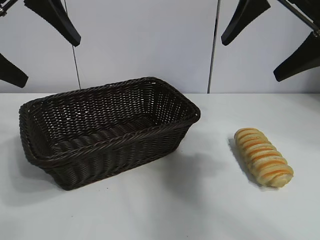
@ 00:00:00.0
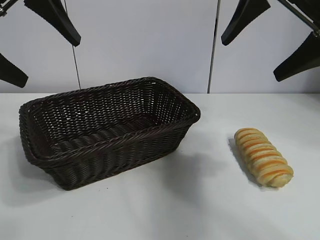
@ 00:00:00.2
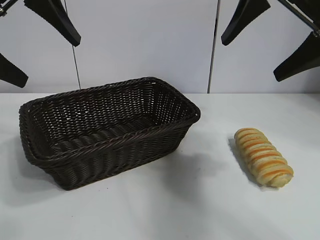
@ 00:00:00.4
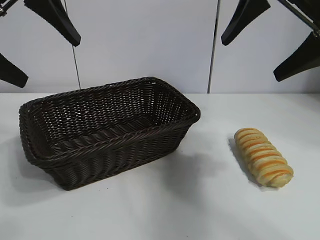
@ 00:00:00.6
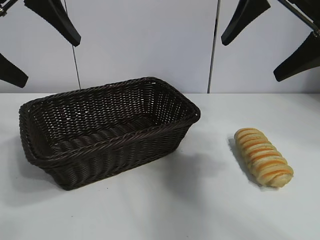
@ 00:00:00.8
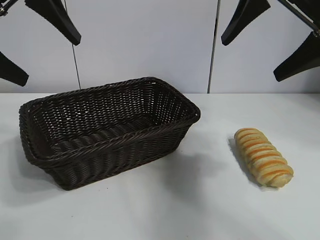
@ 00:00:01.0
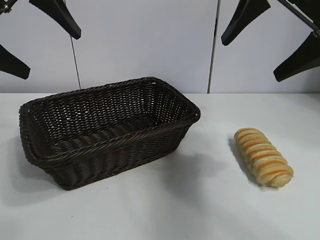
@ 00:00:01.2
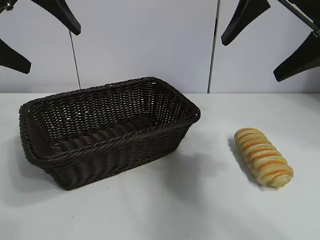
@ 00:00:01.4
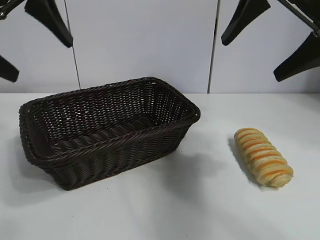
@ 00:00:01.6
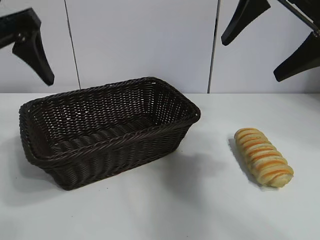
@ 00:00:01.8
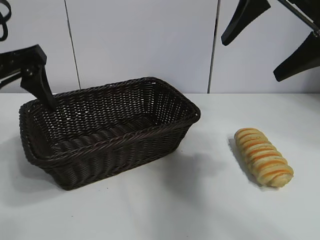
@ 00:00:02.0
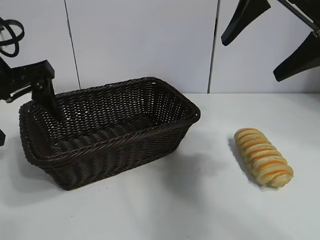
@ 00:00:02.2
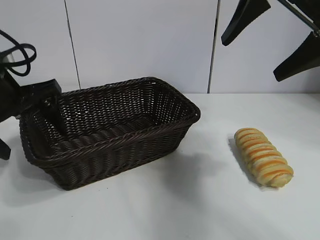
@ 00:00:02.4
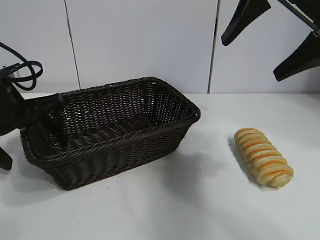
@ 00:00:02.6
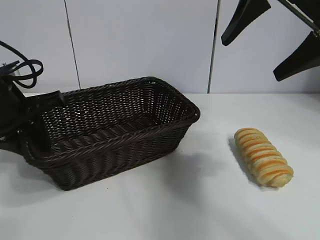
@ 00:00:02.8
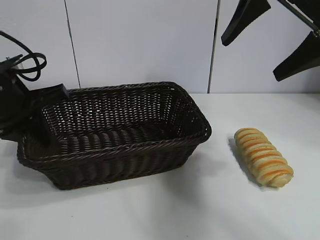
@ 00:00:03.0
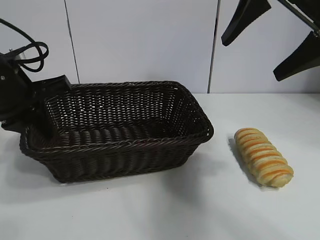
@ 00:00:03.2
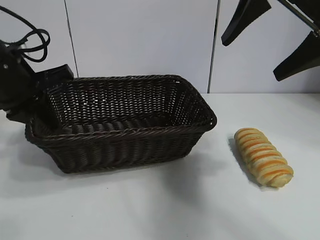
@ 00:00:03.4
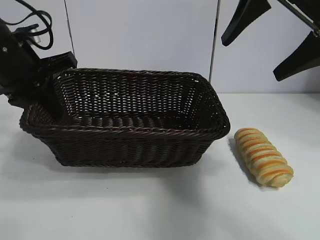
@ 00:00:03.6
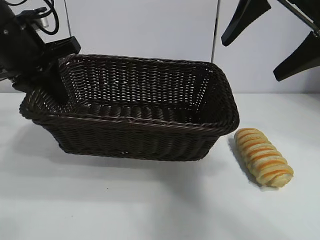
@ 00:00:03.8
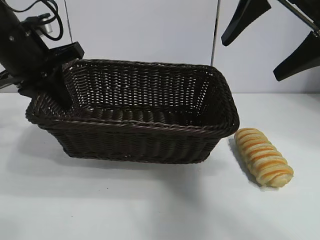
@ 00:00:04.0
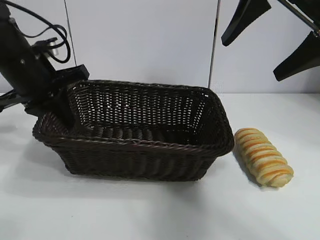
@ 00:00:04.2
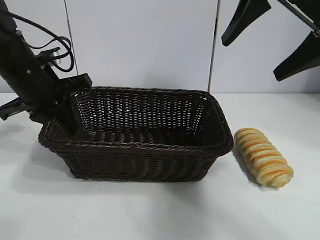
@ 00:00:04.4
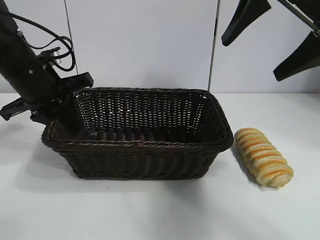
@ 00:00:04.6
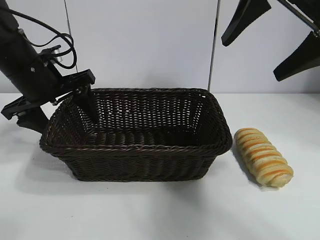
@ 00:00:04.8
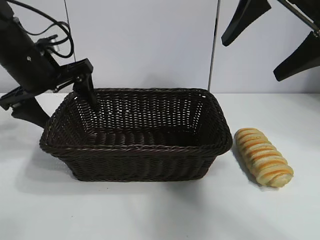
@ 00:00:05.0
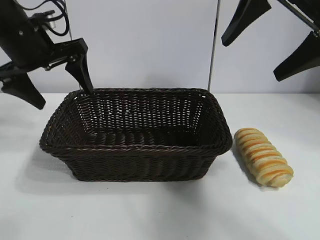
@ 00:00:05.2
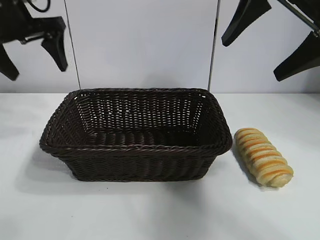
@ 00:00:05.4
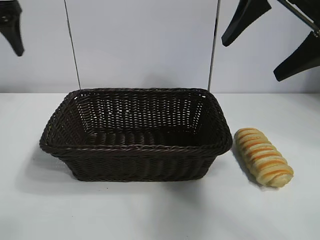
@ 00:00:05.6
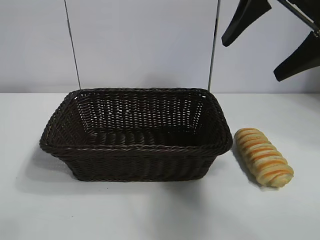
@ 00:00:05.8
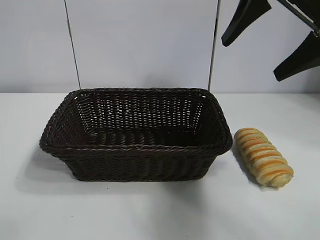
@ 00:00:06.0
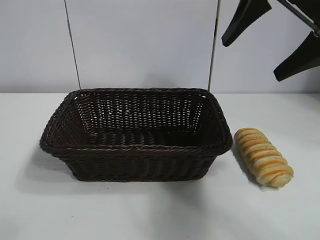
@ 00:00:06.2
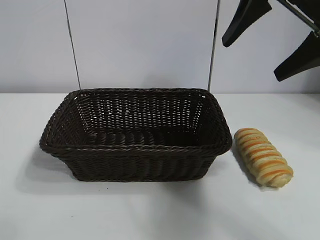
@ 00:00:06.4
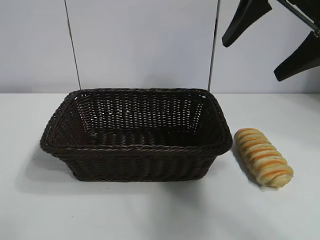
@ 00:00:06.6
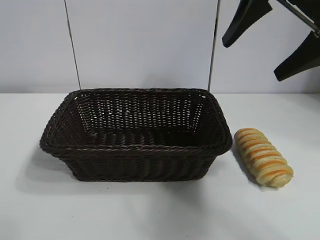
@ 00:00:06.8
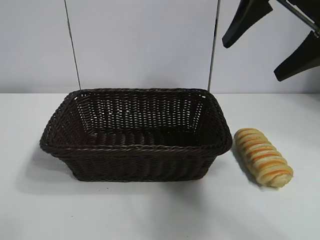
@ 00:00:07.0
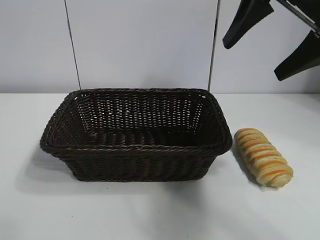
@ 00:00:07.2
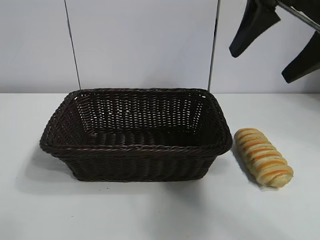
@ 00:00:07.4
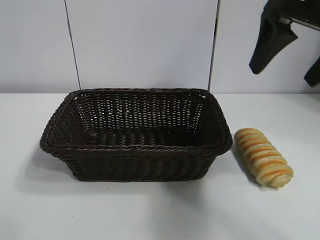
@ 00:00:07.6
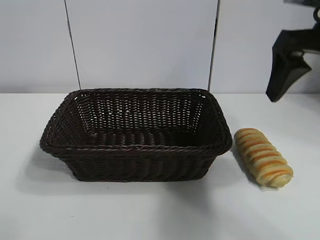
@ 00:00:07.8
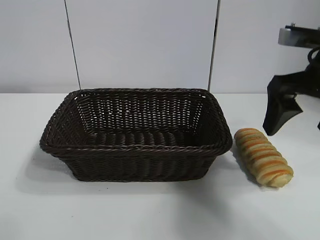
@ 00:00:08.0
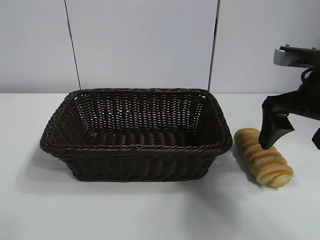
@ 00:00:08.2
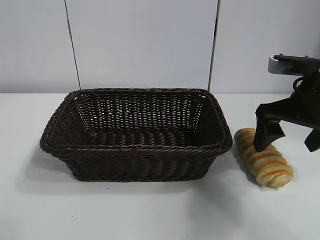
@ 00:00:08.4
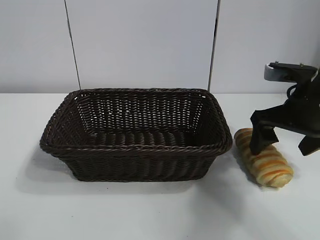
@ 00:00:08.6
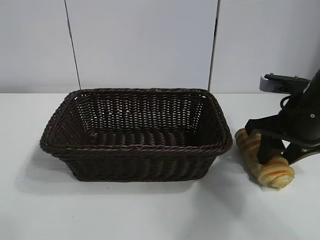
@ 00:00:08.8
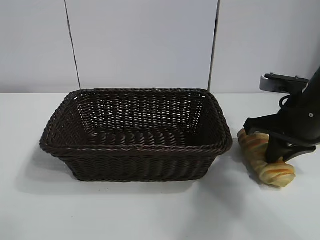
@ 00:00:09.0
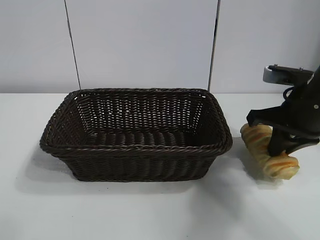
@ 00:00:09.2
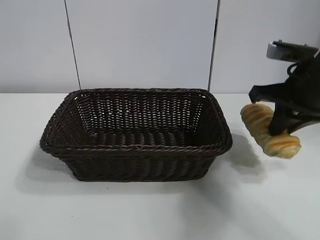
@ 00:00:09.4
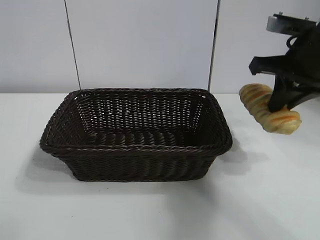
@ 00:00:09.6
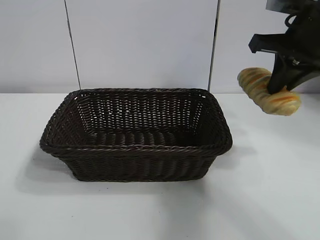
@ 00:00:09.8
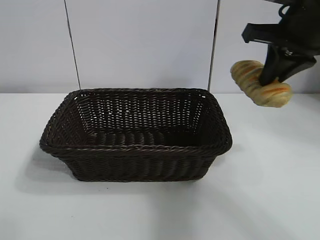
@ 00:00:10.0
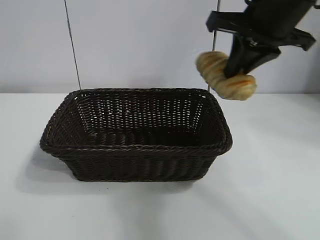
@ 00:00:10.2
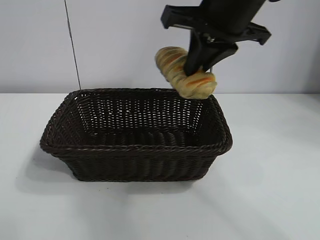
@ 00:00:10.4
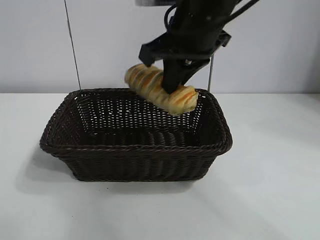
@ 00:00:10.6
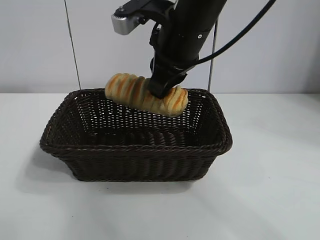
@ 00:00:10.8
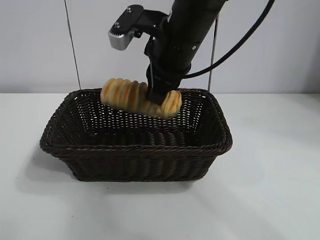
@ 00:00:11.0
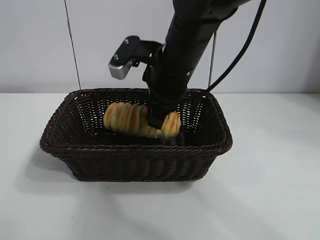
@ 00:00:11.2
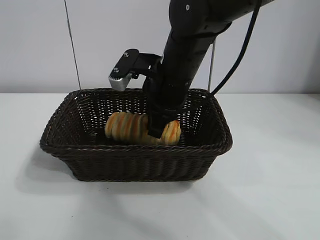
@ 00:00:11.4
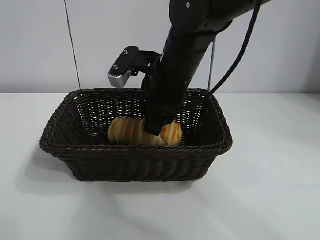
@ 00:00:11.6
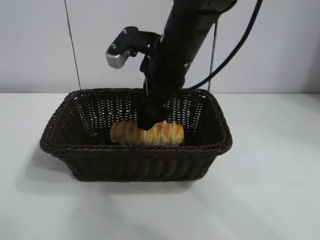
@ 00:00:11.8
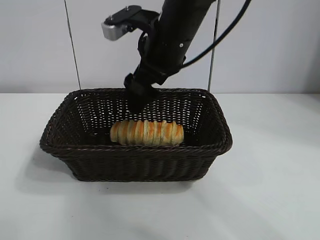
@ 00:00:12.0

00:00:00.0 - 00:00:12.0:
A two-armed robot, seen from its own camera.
Task of the whole recording: pick up the long bread and put it into the basket.
Step, 00:00:01.0 - 00:00:03.0: Grasp the basket with the left gripper.
Step, 00:00:03.2 - 00:00:04.8: Place the basket in the center of the table with the left gripper.
Step, 00:00:05.0 - 00:00:08.8: Grasp the long bread with right gripper.
Step, 00:00:09.0 - 00:00:11.4: Place the long bread in the basket with right gripper.

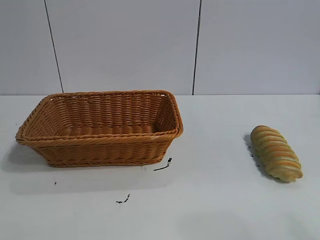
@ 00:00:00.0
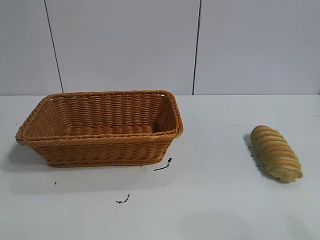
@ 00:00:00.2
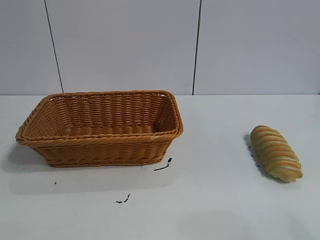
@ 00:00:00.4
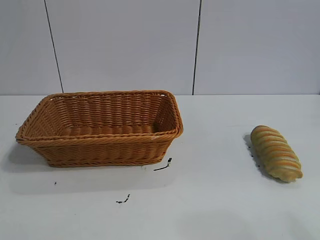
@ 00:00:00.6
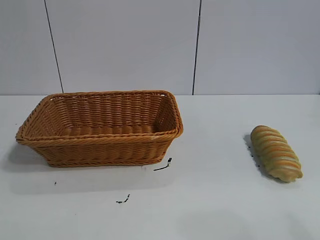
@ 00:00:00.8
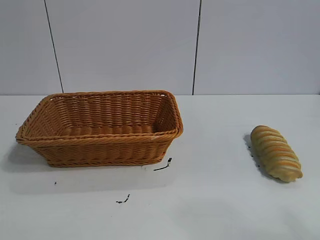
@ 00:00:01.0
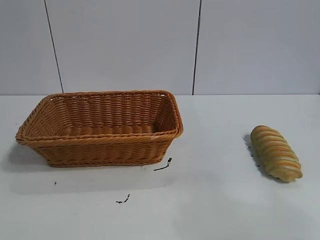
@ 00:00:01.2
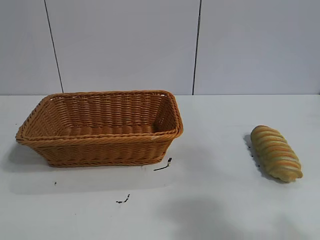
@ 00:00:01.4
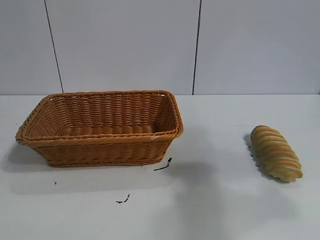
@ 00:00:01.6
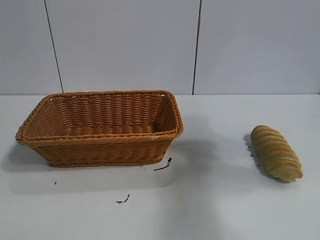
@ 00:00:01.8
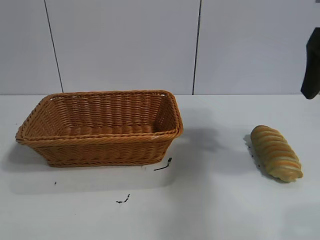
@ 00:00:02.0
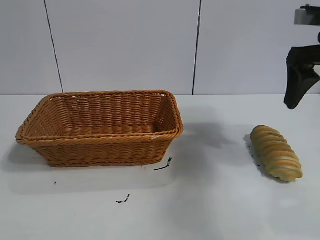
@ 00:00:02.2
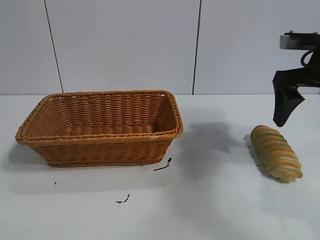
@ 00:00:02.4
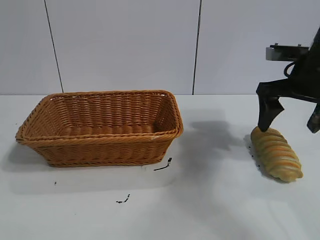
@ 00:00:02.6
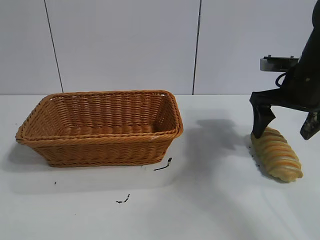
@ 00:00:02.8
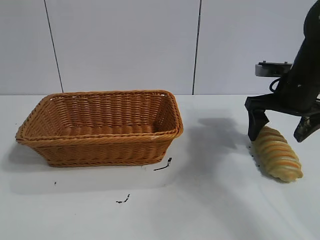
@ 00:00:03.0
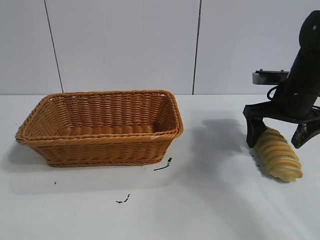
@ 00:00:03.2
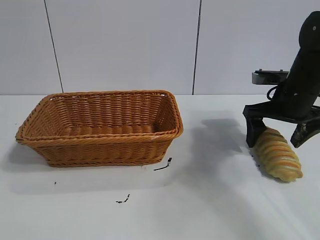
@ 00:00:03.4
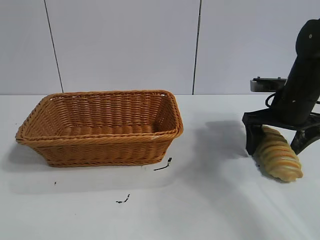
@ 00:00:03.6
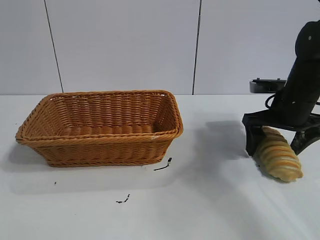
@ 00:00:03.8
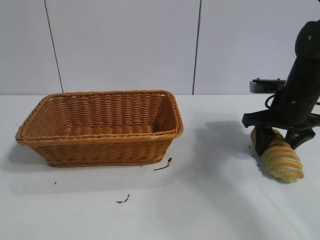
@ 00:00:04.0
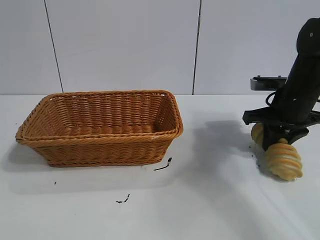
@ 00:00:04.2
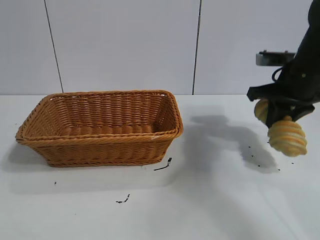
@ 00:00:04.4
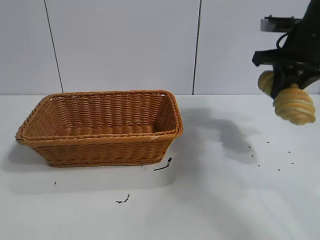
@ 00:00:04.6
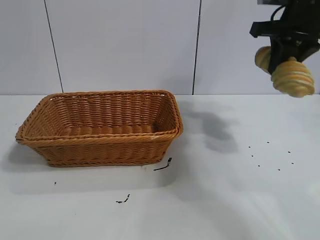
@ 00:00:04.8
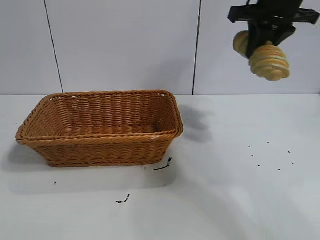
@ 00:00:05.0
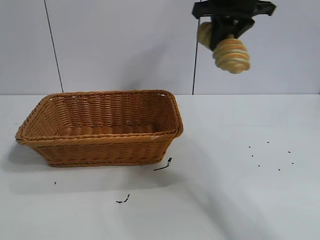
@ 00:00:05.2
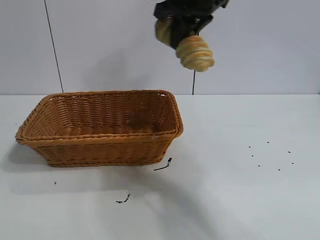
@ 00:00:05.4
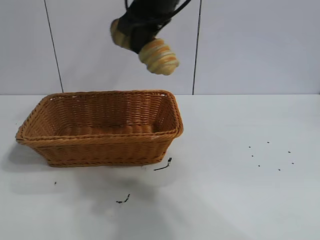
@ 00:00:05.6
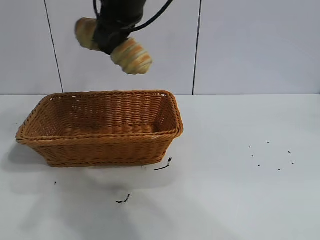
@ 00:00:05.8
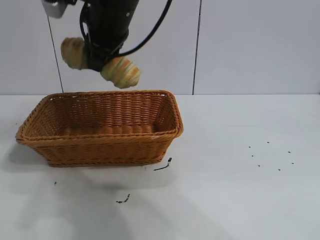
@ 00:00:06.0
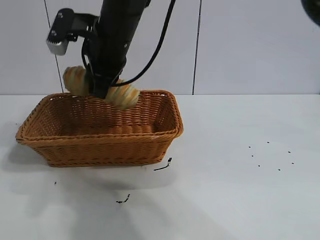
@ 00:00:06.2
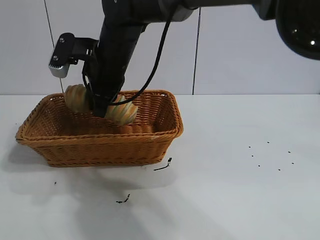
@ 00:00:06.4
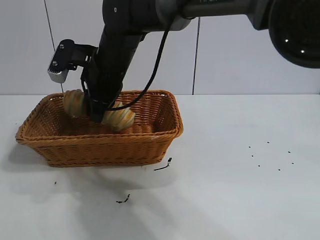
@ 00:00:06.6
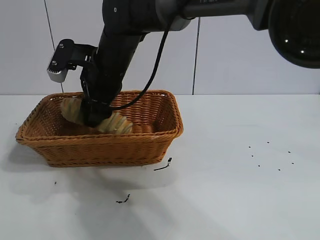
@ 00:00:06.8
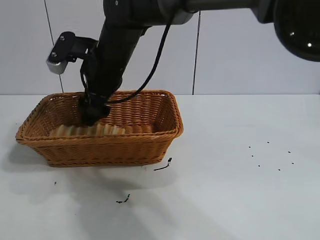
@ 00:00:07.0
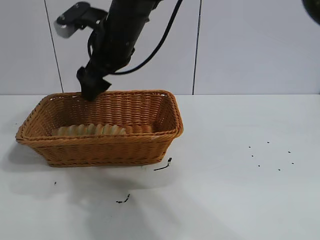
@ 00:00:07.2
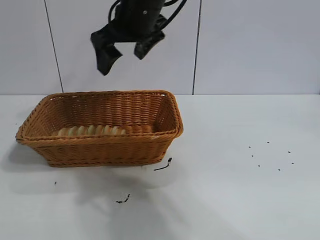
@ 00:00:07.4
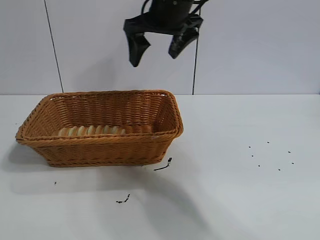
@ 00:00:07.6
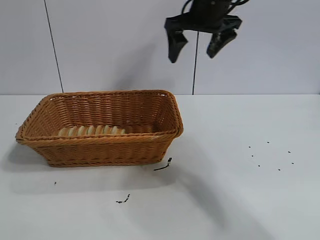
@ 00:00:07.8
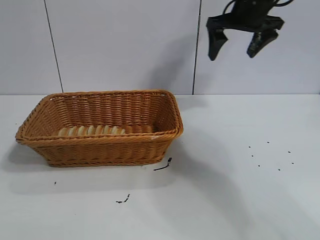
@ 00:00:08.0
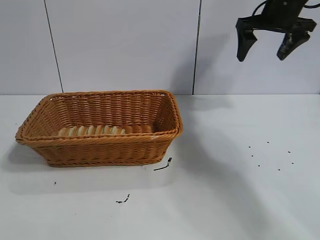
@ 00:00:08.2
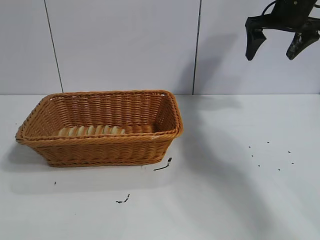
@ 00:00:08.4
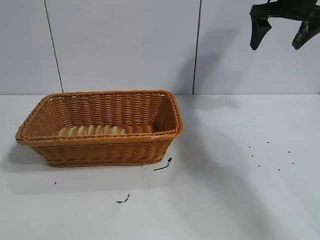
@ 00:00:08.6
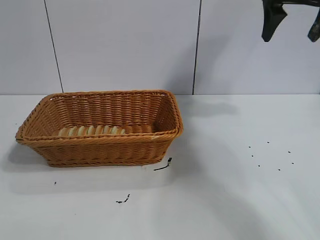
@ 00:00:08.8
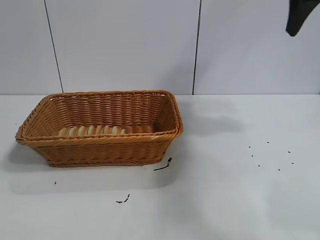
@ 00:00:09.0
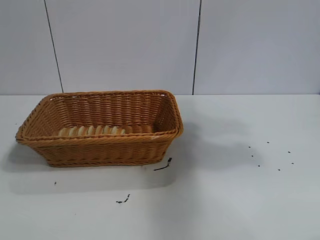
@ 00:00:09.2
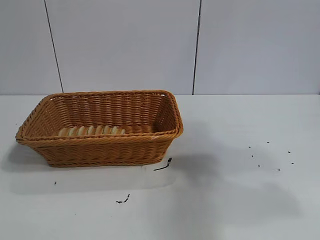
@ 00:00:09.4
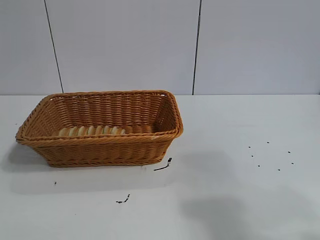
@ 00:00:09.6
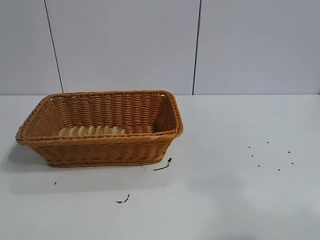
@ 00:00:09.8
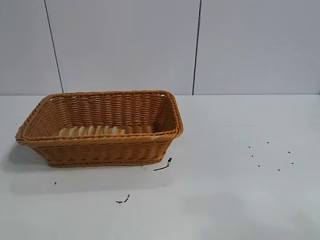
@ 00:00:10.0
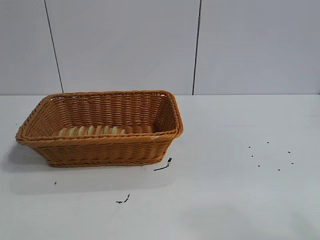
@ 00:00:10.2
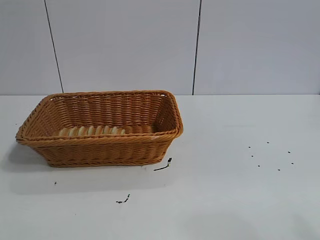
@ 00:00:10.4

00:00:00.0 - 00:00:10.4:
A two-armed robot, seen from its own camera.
Task of the whole recording: pick up the long bread and put it into the basket.
Step, 00:00:02.0 - 00:00:04.4: Grasp the long bread with right gripper.
Step, 00:00:04.6 - 00:00:07.0: Place the long bread in the basket with right gripper.
